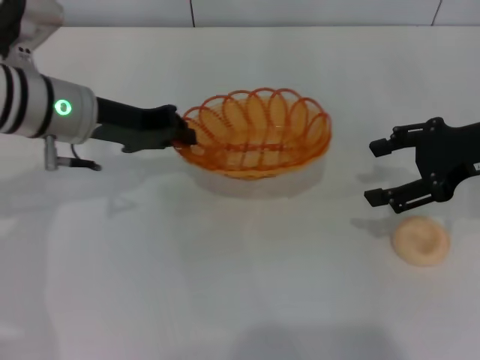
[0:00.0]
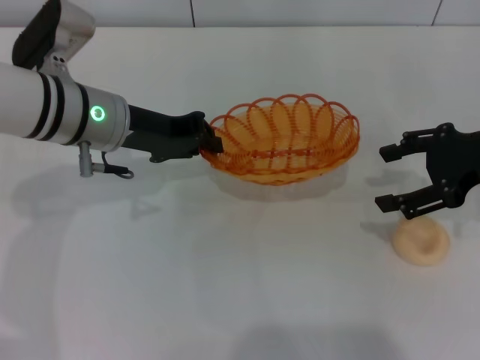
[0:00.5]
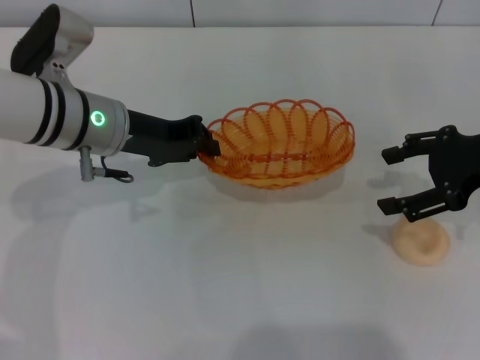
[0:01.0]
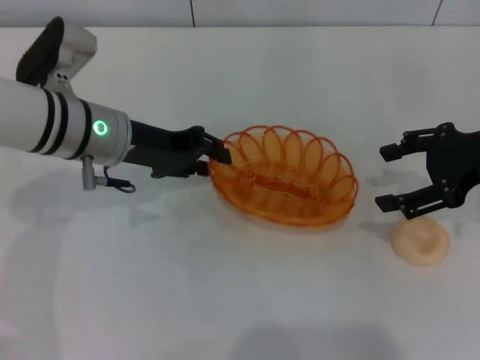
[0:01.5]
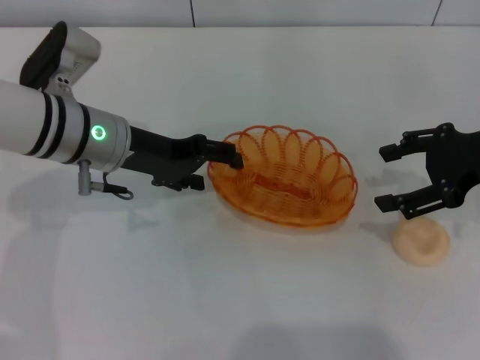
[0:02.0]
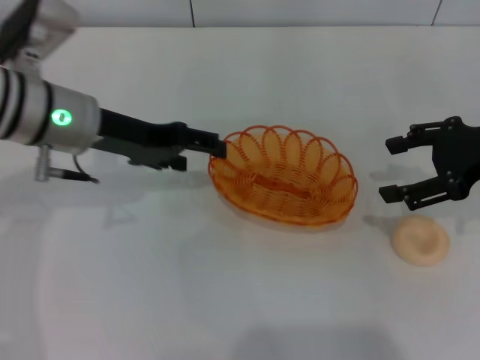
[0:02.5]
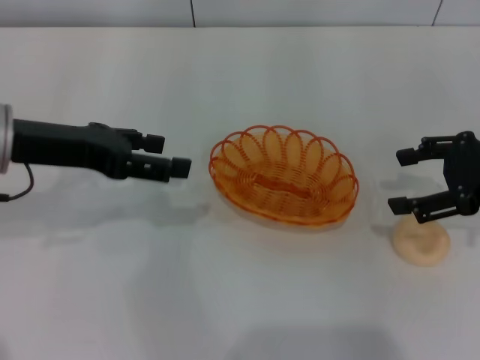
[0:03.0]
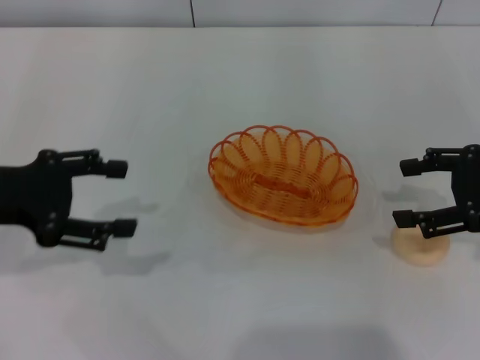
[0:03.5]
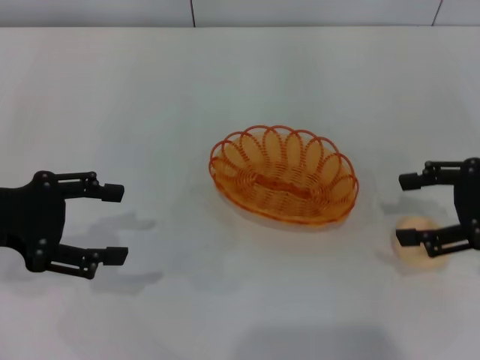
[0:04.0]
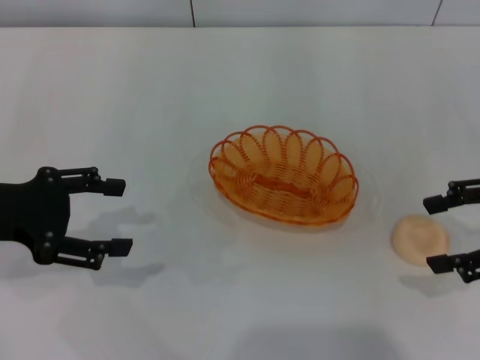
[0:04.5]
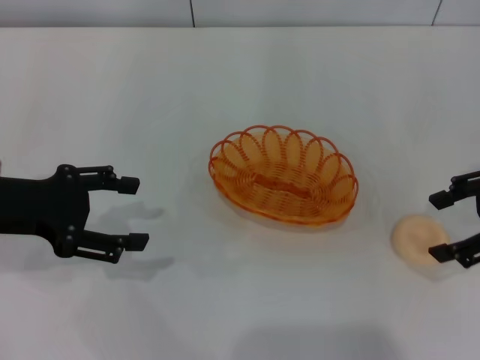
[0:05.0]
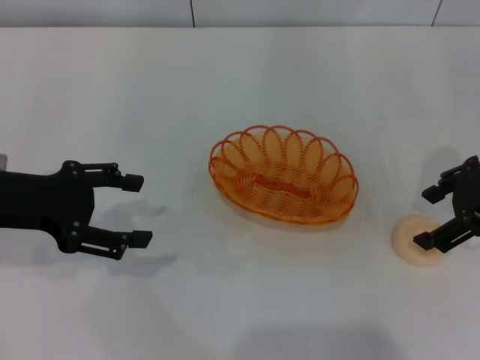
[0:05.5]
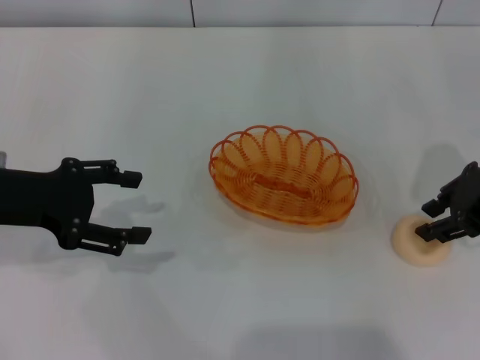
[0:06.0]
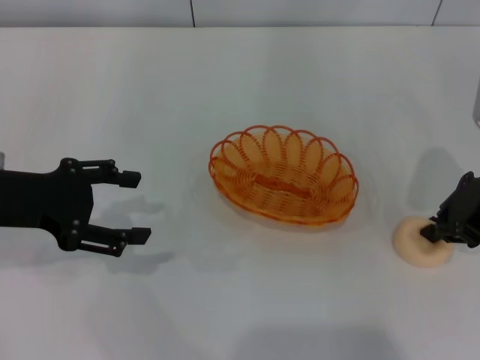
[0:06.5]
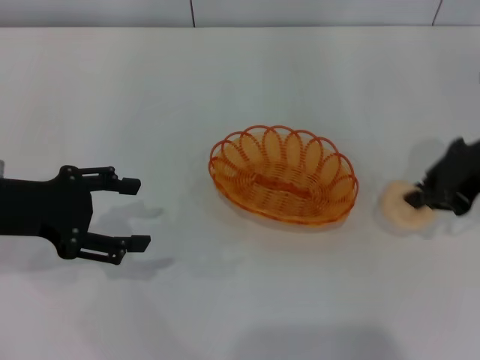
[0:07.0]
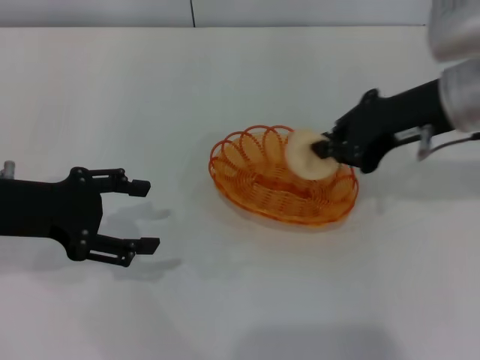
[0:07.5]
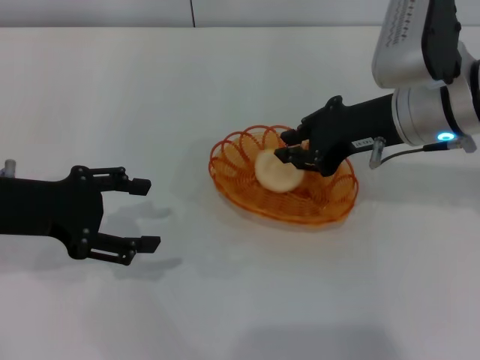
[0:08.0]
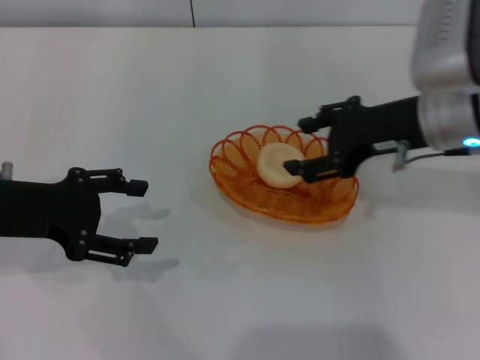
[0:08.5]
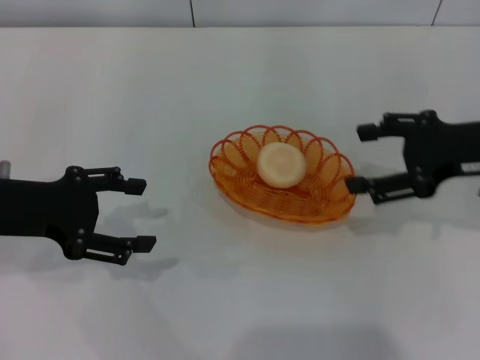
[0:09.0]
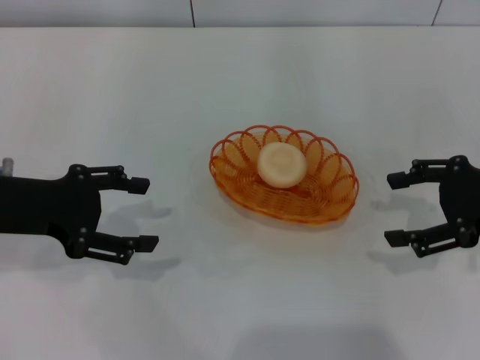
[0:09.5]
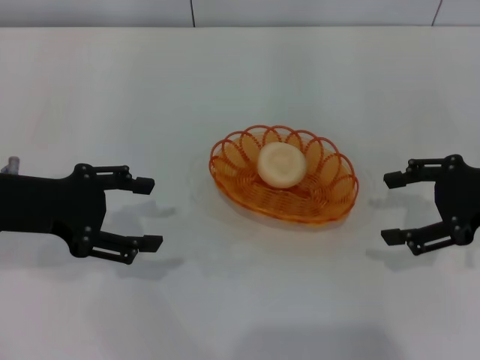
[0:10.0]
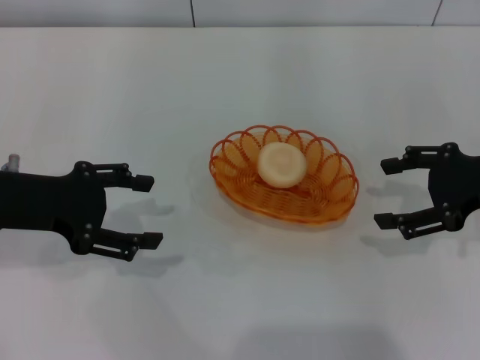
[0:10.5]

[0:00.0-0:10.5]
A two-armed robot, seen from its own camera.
Step, 0:00.0 to 0:02.5: Place the basket in the center of view with the left gripper.
Step, 0:03.0 to 0:06.5: Pick up the egg yolk pastry with the right gripper.
Step, 0:07.0 to 0:08.5: Place the egg yolk pastry into the basket with the right gripper.
0:00.0 to 0:02.0: The left gripper opens.
0:02.0 to 0:04.0: The right gripper shifts by some 5 cm, while the left gripper heads to the left and backward, covering approximately 15 cm.
0:04.0 to 0:06.5: The right gripper goes roughly 5 cm to the left, and closes up.
0:06.5 to 0:08.5: The right gripper shifts some 5 cm to the left, and opens up.
0:08.5 to 0:10.5: The right gripper is displaced to the right by about 10 cm, and opens.

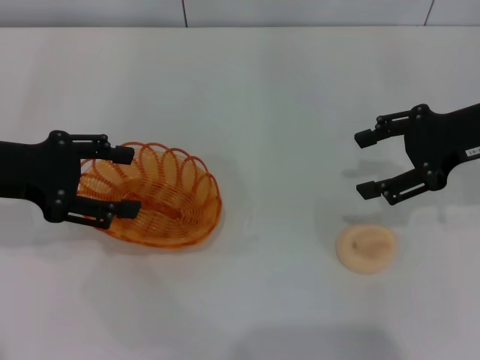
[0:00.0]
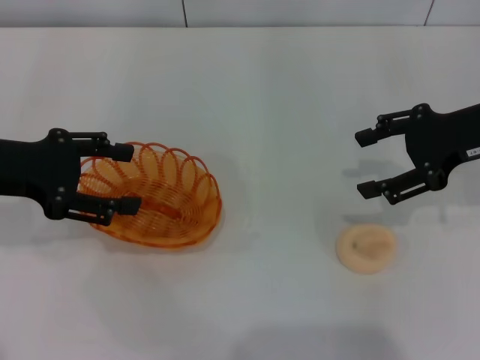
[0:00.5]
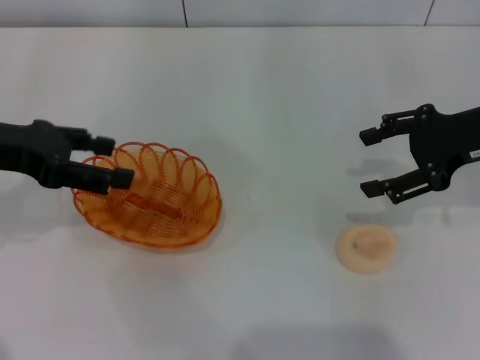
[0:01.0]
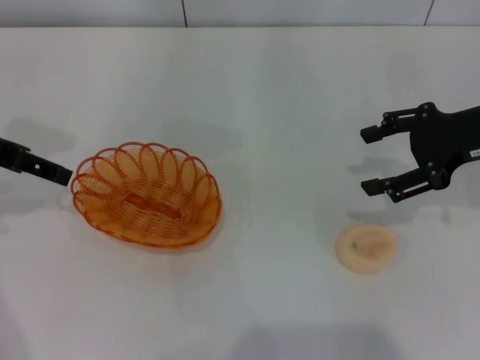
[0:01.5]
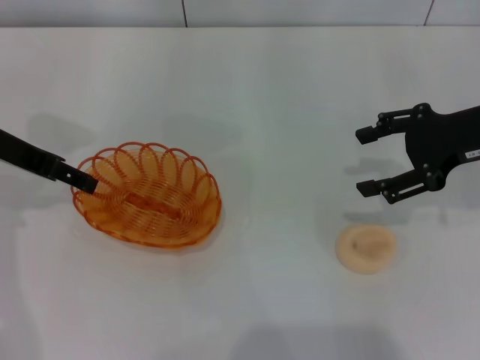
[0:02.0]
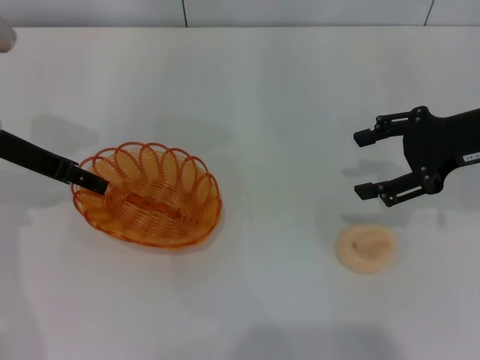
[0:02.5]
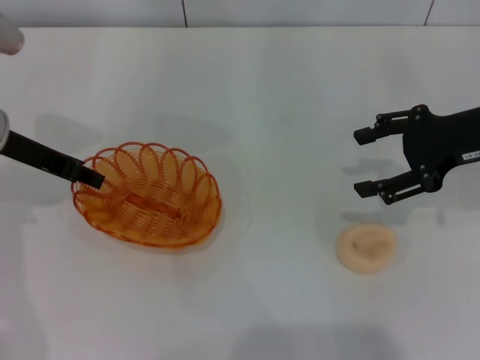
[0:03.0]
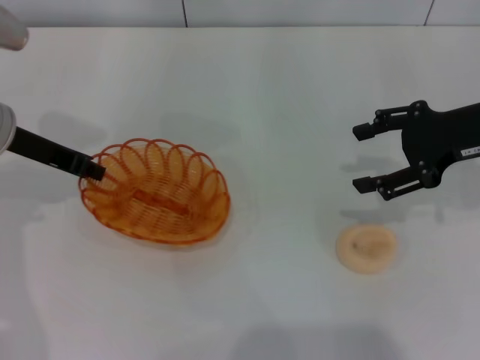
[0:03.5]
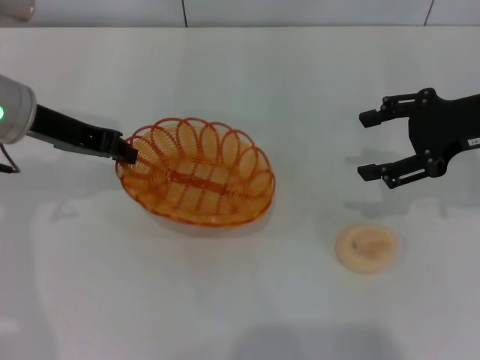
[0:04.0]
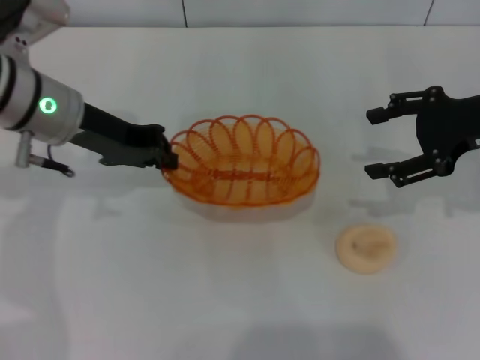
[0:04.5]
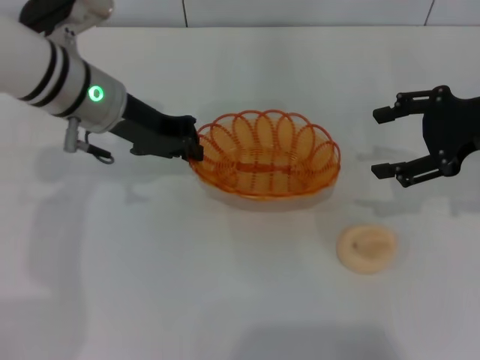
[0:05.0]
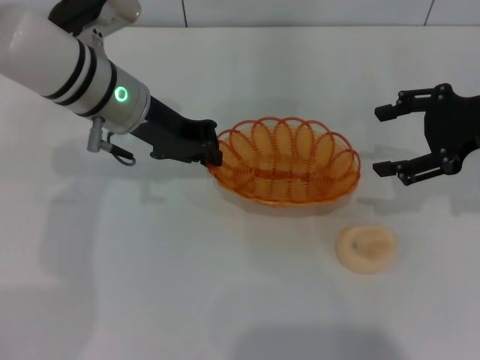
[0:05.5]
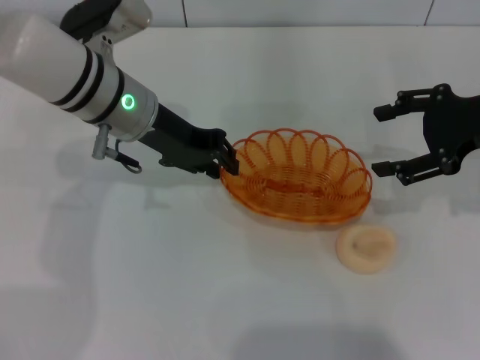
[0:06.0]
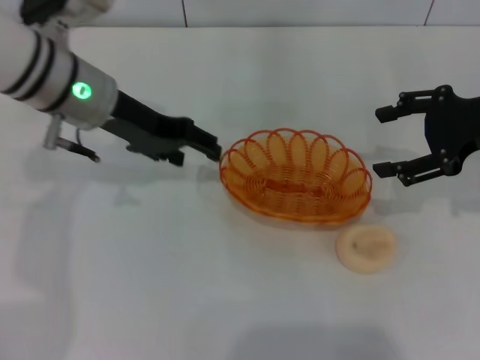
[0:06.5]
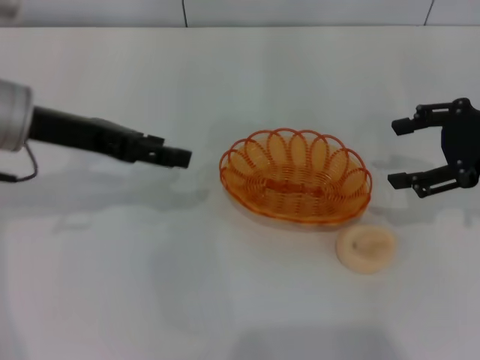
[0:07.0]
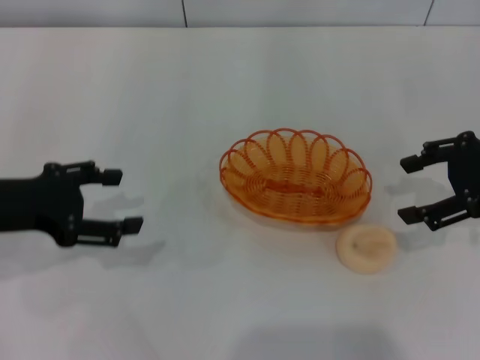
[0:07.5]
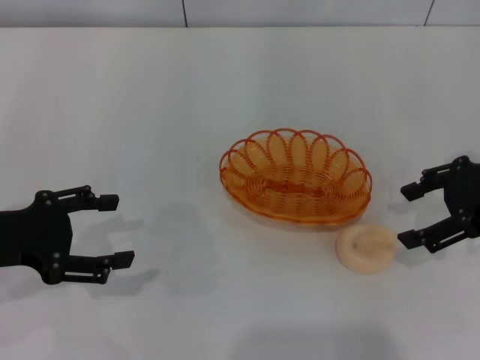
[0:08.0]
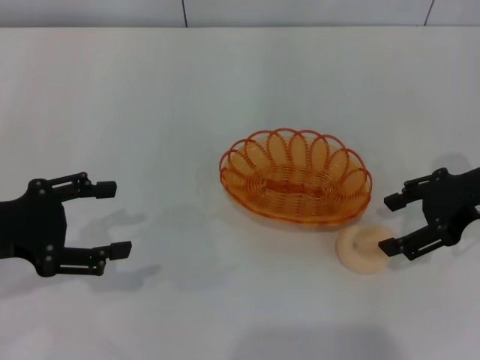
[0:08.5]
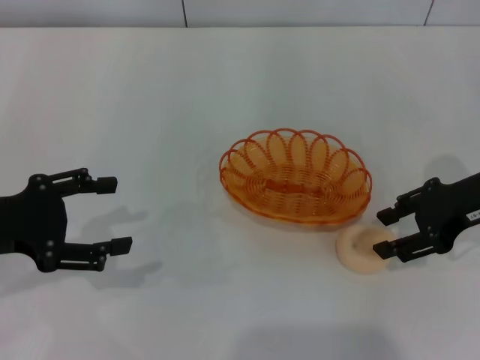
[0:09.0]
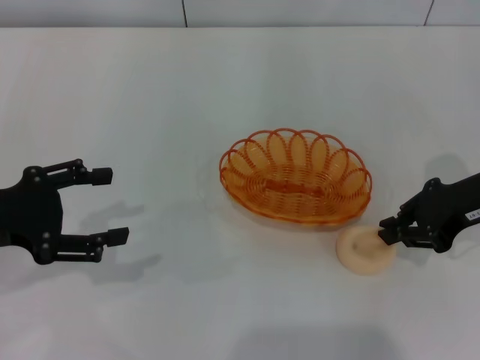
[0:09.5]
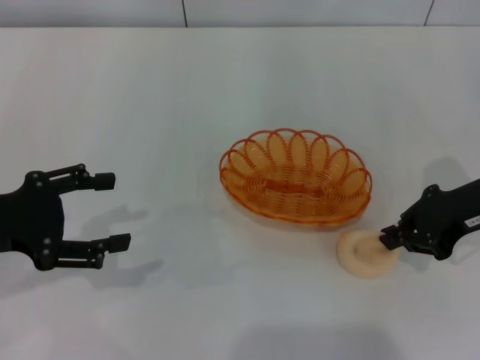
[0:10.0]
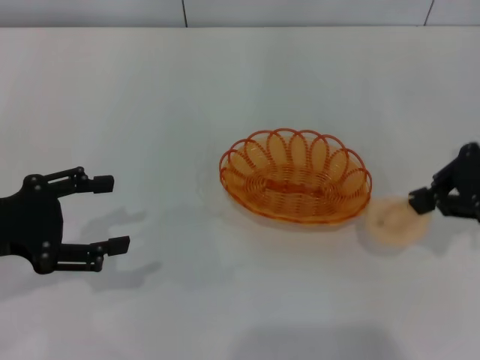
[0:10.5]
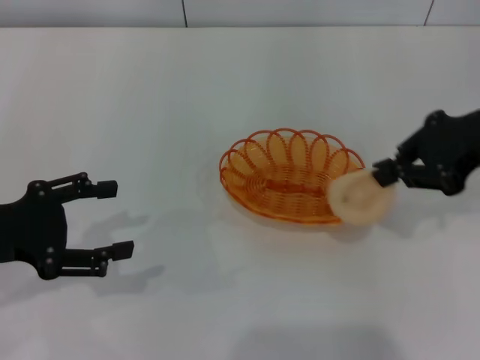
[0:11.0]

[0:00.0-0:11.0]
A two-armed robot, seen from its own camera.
Step, 0:00.0 to 0:04.5: Pick up the basket with the left gripper.
Step, 0:05.5 to 0:07.0: Place the basket in the center of view with the left gripper.
Step, 0:07.5 to 0:10.5: Pick up the egg yolk pastry with the right gripper.
0:00.0 to 0:02.0: The left gripper shifts by about 5 cm.
0:02.0 to 0:03.5: The left gripper closes.
0:03.5 to 0:05.5: The left gripper is displaced to the right by roughly 10 cm.
0:05.5 to 0:07.5: The left gripper goes roughly 20 cm to the left and backward, and opens up.
0:07.5 to 0:09.0: The grippers make only small movements.
0:09.0 to 0:11.0: The right gripper moves upward, approximately 10 cm, and closes up.

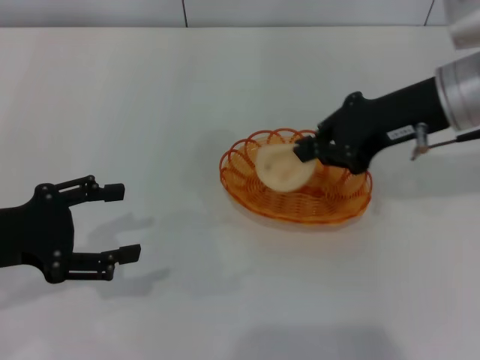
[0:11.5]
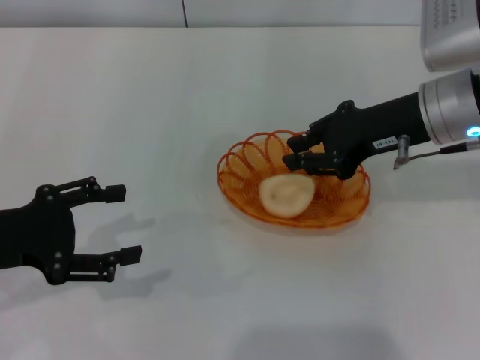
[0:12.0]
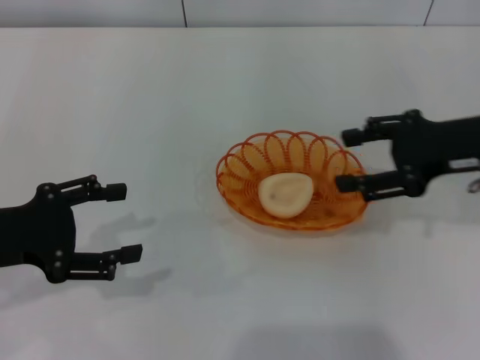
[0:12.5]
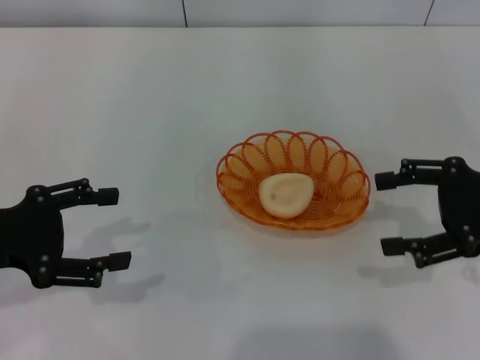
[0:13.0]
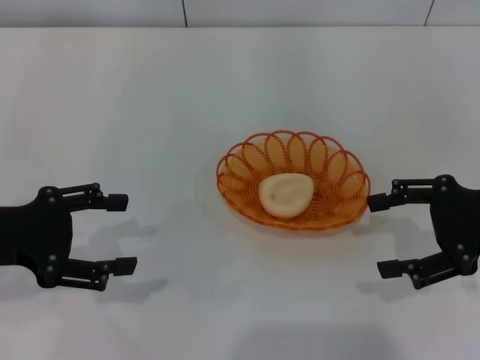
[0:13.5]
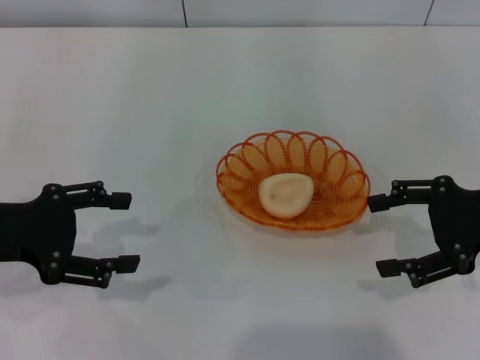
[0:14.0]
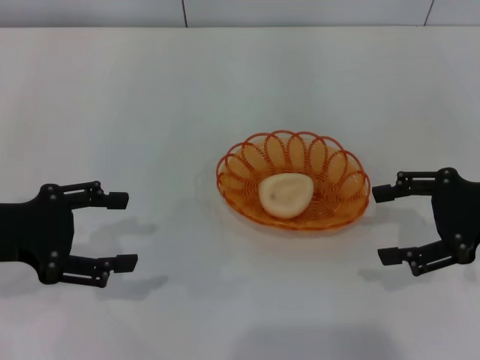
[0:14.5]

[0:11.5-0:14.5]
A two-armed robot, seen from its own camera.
Step, 0:11.5 to 0:12.5: Place the egg yolk pastry into the basket with the right gripper.
0:11.5 to 0:13.0: The right gripper travels to the right, backward and downward by about 15 cm, and opens.
0:13.0 to 0:14.5: The grippers move only a little.
